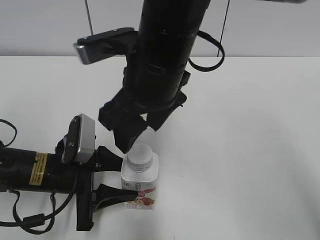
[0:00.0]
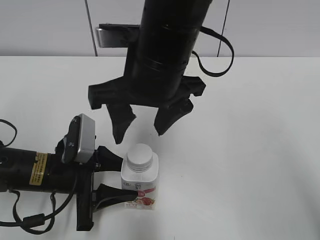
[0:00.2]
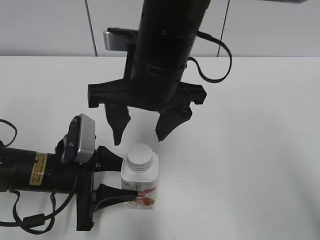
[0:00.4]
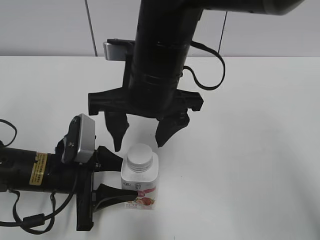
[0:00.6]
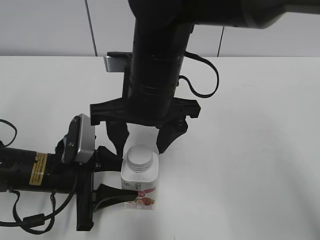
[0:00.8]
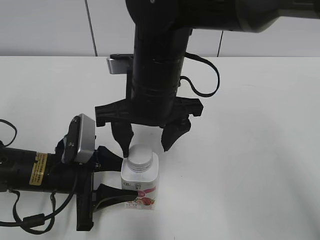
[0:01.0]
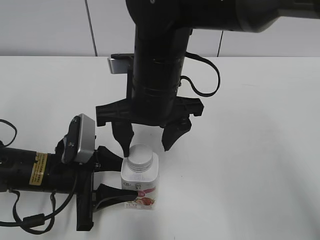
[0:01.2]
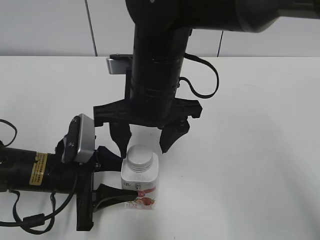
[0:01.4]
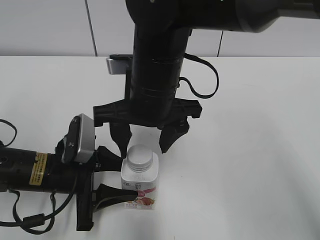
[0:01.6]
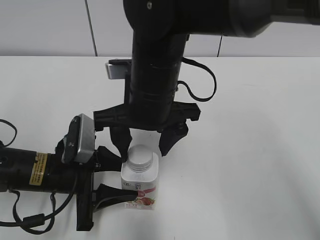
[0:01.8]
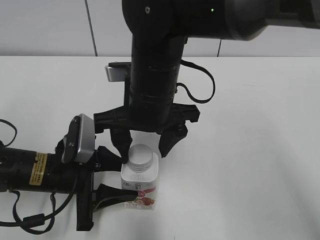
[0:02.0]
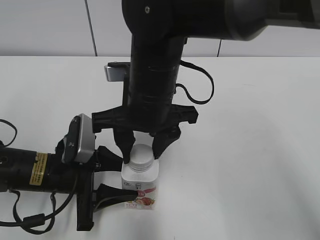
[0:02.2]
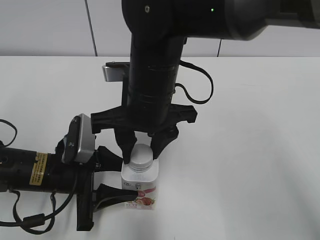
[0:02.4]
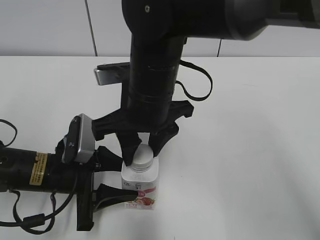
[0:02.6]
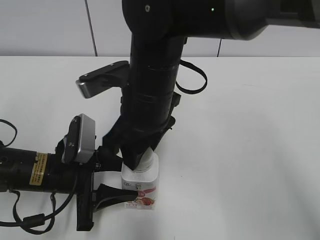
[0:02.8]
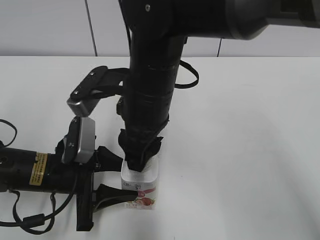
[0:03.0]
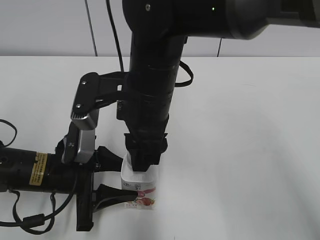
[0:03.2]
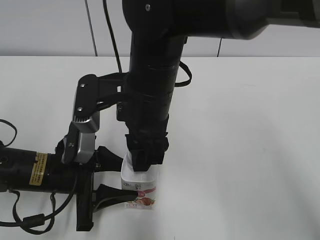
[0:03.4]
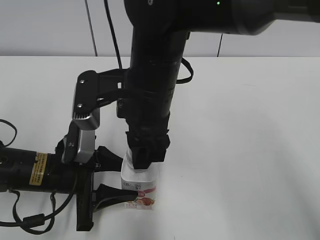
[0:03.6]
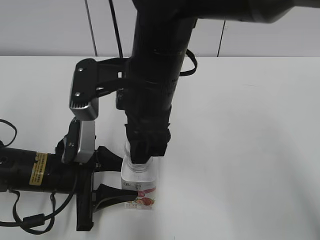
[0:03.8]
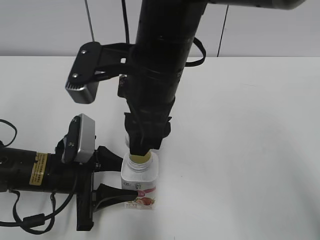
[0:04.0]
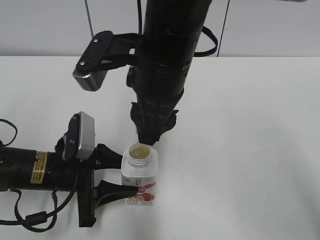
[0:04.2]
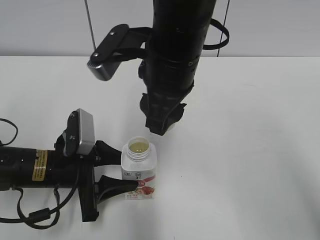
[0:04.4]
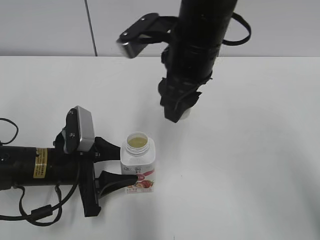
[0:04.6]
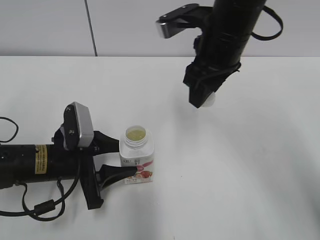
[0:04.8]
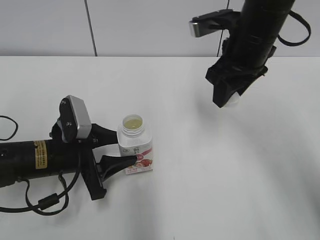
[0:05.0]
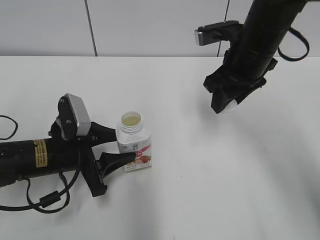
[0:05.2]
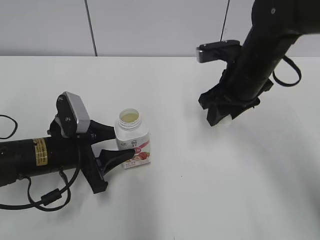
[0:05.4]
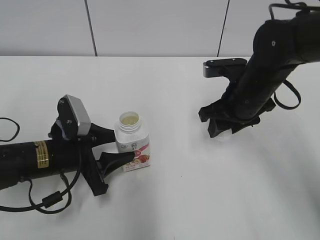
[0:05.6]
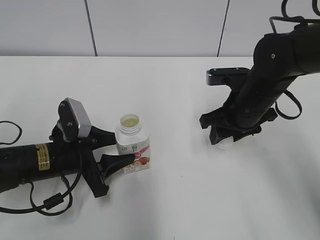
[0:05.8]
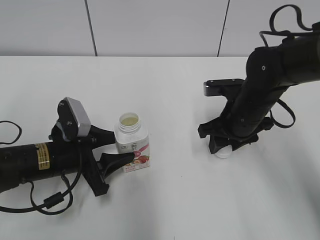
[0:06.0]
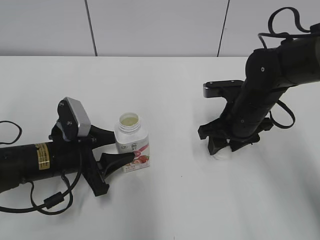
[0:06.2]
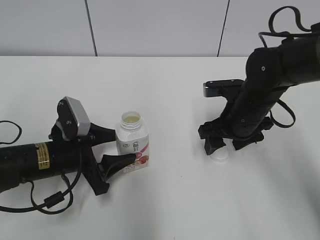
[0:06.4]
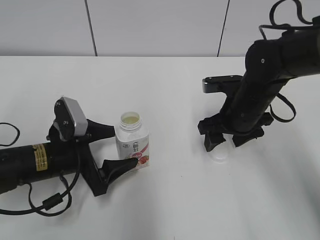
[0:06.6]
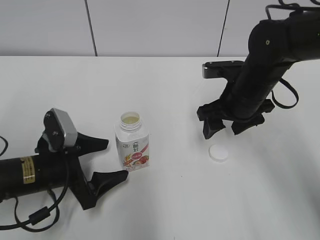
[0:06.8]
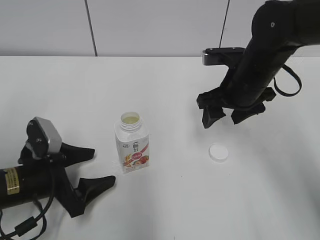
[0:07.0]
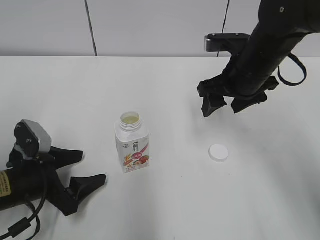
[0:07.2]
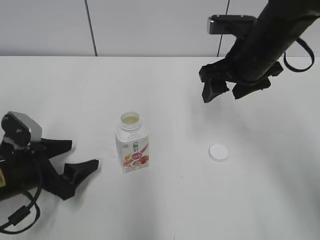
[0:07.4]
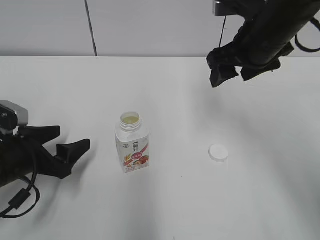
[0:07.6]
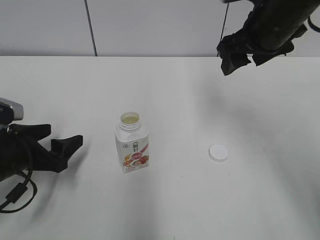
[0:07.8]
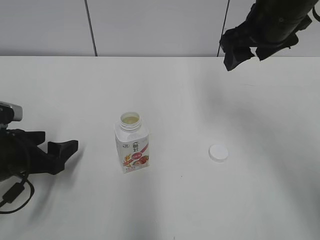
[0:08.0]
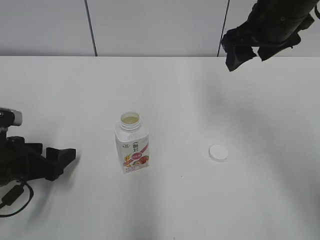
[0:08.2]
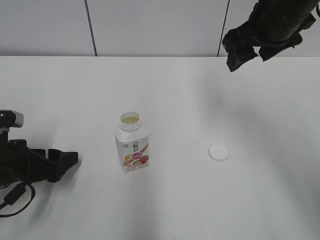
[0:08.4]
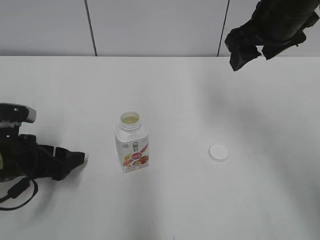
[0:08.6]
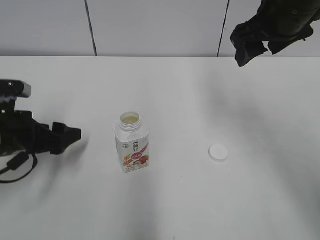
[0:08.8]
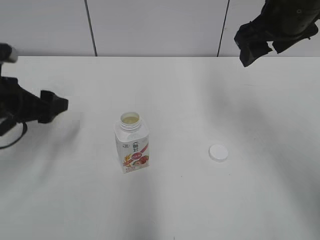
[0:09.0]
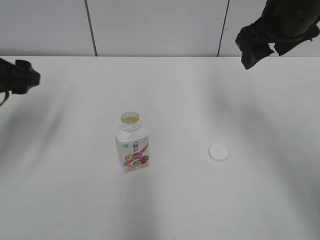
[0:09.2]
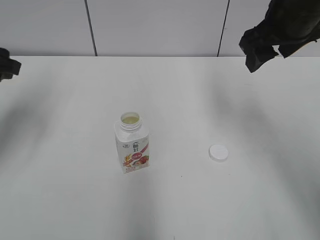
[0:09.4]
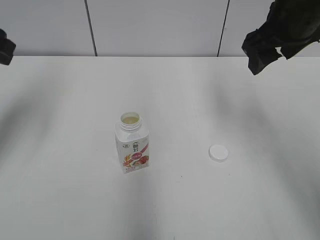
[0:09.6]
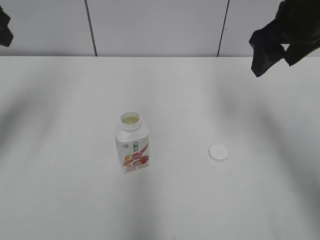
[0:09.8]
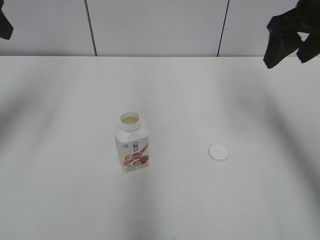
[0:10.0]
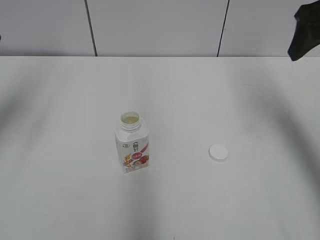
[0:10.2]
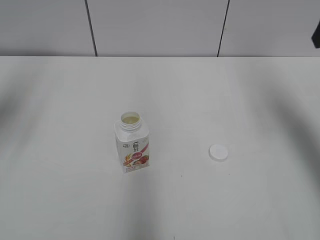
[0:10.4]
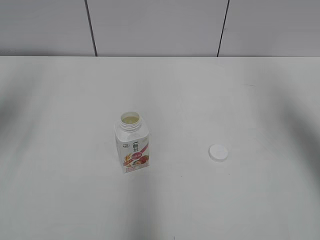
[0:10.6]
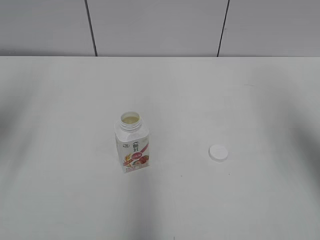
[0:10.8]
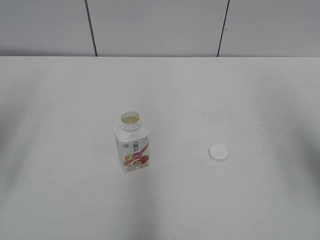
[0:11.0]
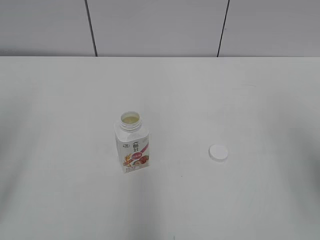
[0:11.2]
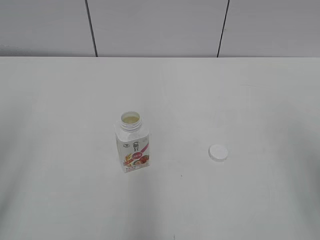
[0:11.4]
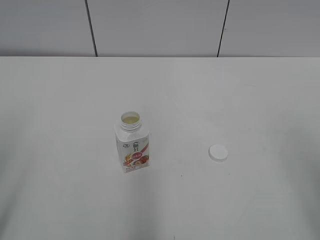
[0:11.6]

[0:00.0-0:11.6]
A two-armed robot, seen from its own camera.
Step, 0:03.8 to 0:05.0: Move the Yili Changqing from bottom to top.
0:01.4 to 0:02.8: The right gripper closes up.
0:02.8 to 0:04.4: The right gripper moves approximately 5 cm.
0:04.4 to 0:05.8: The right gripper moves to the right, downward and forward, some 20 cm.
0:05.8 to 0:07.2: The right gripper travels upward by roughly 5 cm, and opens. Meanwhile the left gripper shifts by some 5 cm, and opens its fingers.
0:07.2 to 0:08.8: The right gripper is displaced upward by about 10 cm; the left gripper shifts by approximately 5 cm.
0:08.8 to 0:10.2: The right gripper is displaced to the right by about 10 cm. The left gripper shifts roughly 25 cm upward, and closes up.
0:10.2 to 0:11.6: Both grippers move backward, roughly 25 cm.

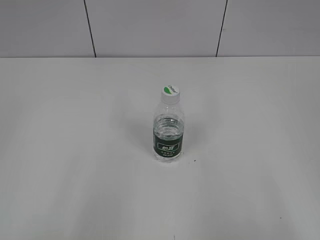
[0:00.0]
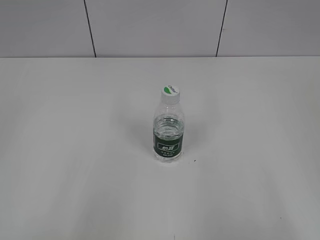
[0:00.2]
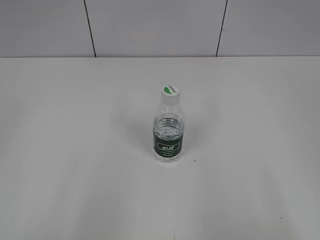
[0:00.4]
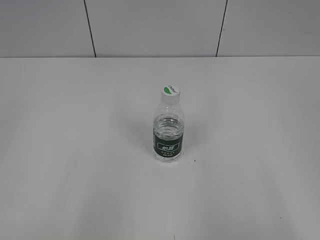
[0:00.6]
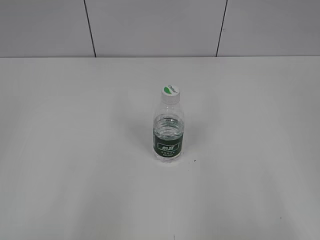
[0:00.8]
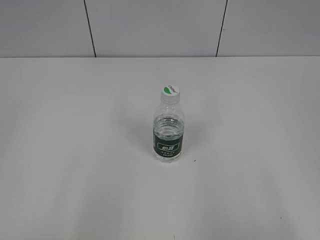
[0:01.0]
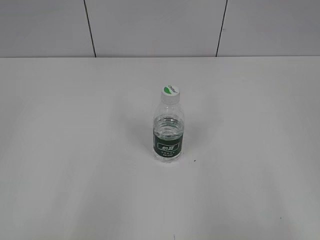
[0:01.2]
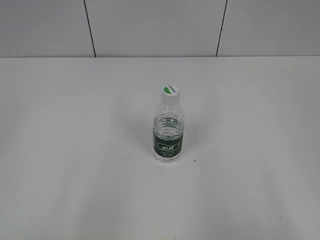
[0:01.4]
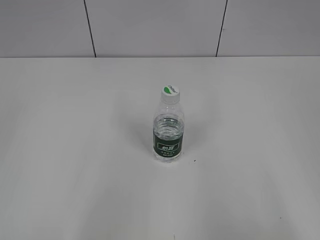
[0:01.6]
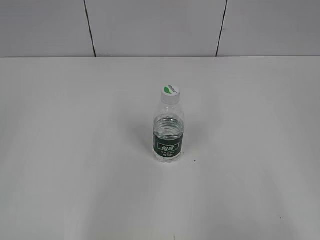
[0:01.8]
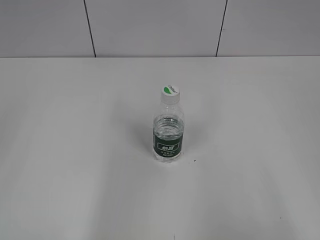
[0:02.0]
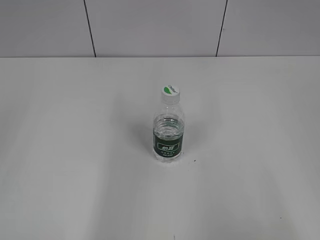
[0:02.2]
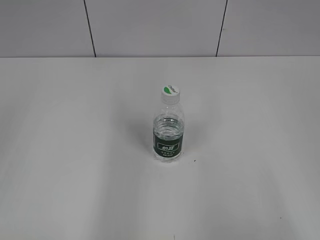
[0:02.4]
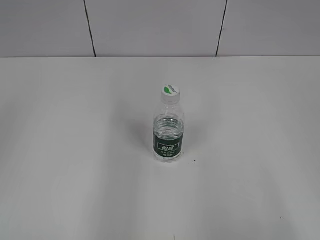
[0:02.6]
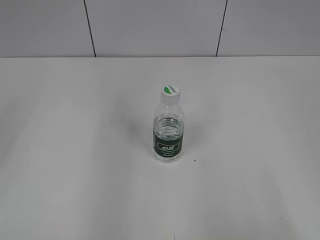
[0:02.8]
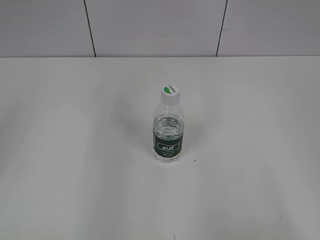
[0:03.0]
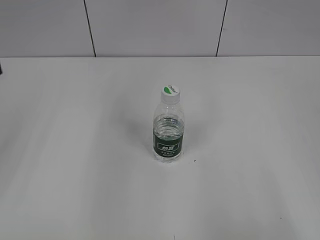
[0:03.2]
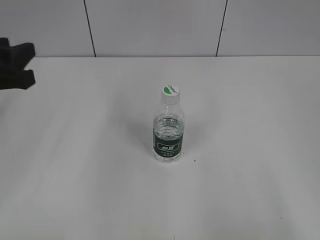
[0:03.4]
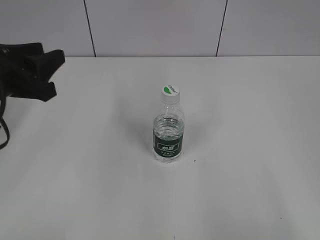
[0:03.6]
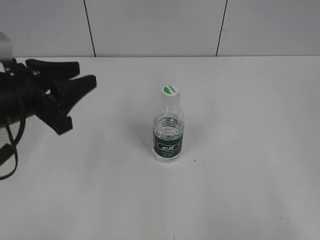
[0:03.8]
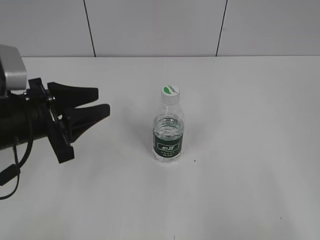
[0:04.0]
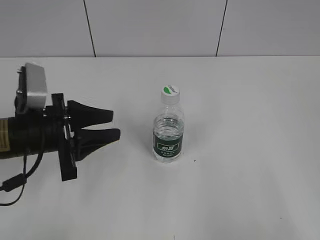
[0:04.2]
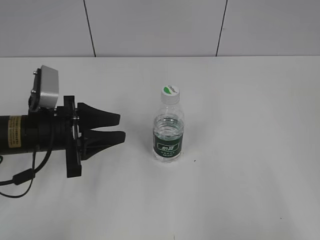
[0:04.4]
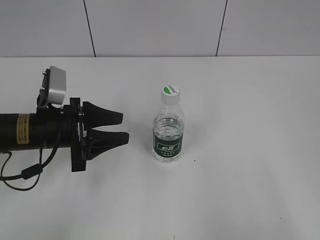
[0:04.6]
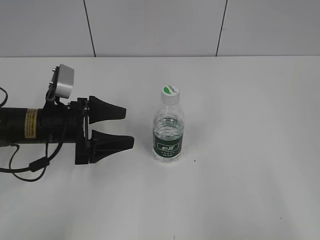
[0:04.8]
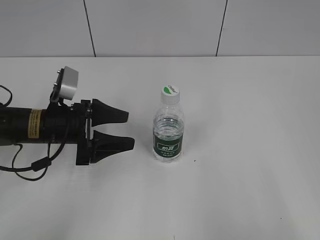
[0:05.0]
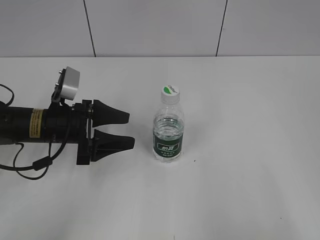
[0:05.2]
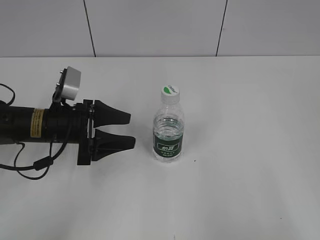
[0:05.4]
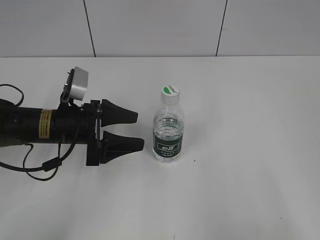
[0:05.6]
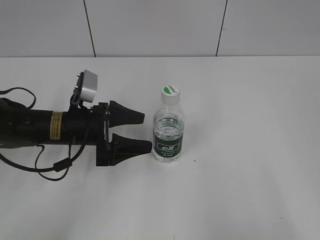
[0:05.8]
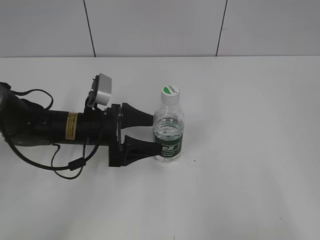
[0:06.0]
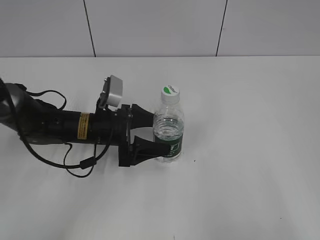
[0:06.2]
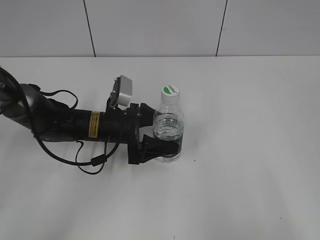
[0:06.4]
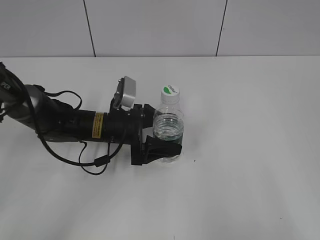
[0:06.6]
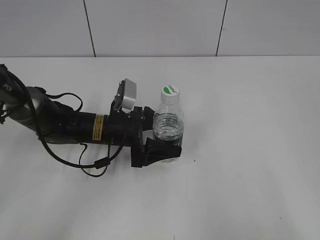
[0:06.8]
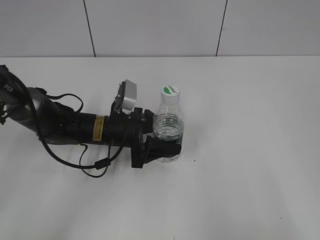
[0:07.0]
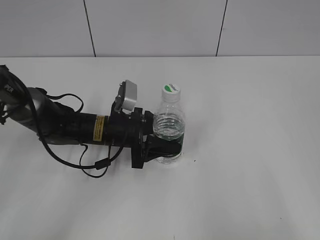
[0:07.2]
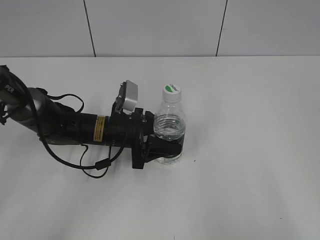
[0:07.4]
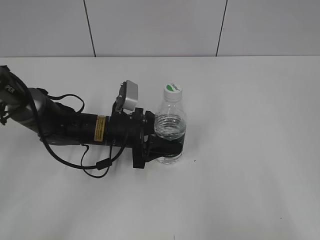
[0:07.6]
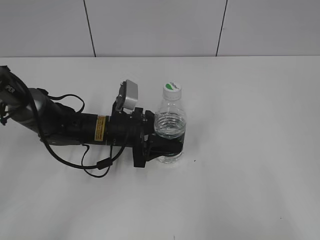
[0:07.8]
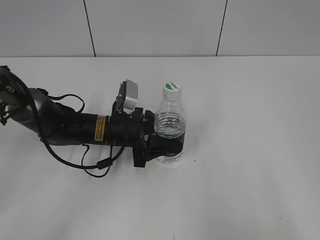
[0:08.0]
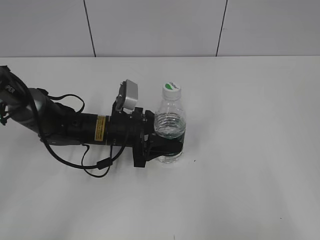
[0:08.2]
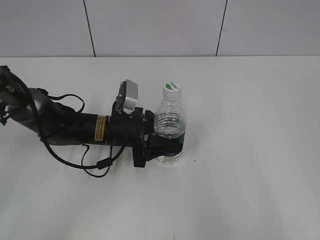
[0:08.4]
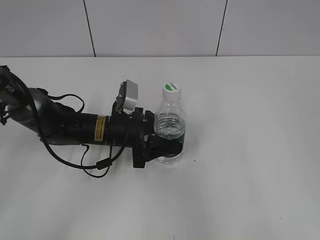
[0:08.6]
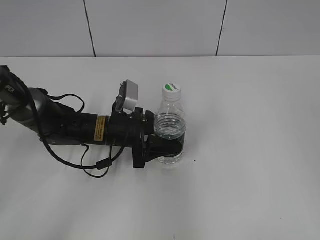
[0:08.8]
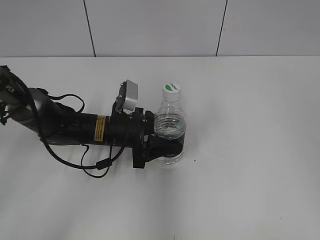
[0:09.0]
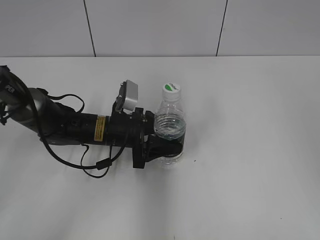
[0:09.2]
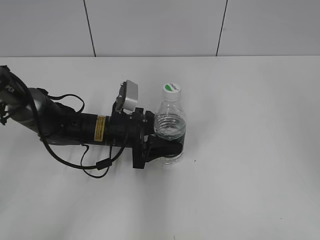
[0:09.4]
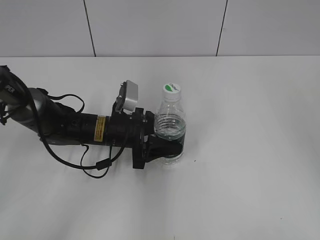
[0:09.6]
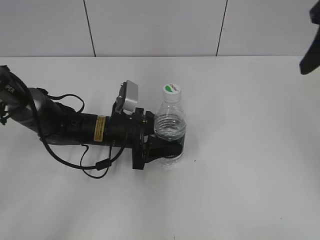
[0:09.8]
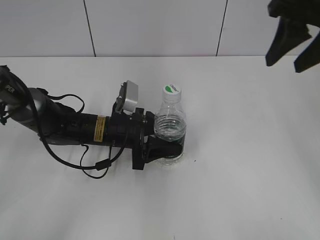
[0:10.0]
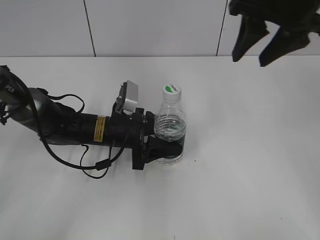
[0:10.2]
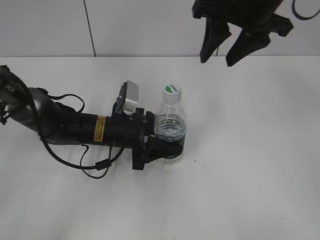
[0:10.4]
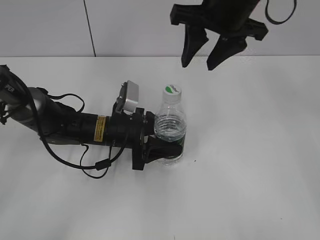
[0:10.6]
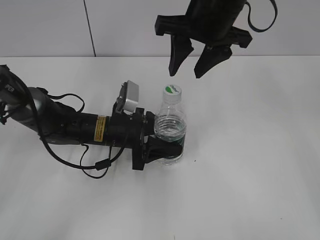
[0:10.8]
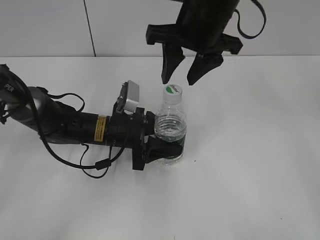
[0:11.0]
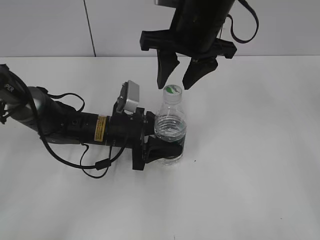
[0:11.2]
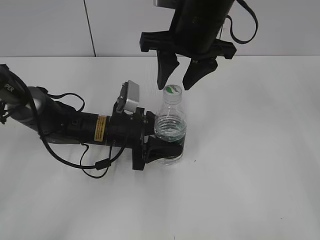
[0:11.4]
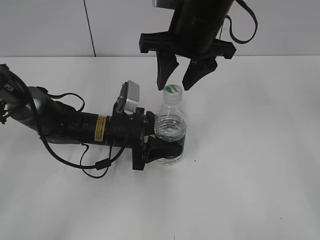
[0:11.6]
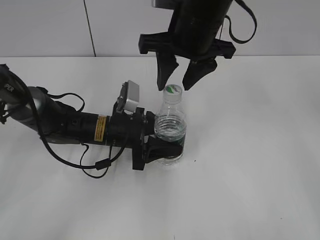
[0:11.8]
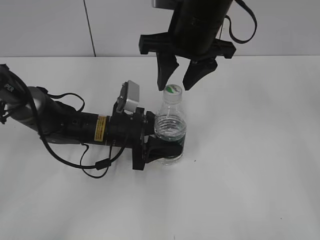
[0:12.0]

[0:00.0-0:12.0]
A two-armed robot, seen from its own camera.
Step, 0:00.0 to 0:07.0: Grasp the bottle and move it to the center of the table with the left gripper.
0:03.0 to 0:04.4: The left gripper moves downward, to the right and forward, roughly 20 cm.
0:04.4 to 0:06.0: The left gripper travels to the right and forward by roughly 10 cm, and opens up.
0:06.0 to 0:07.6: The left gripper changes place by some 5 cm, and closes.
0:07.6 to 0:09.0: The right gripper goes roughly 15 cm forward and upward.
0:09.0 to 0:10.4: The right gripper shifts roughly 30 cm forward and to the left.
0:10.4 to 0:12.0: The right gripper moves to the left, approximately 10 cm.
